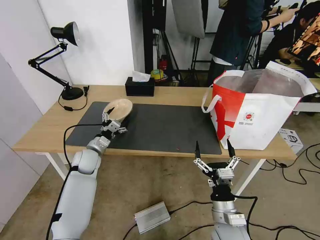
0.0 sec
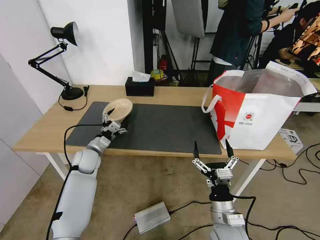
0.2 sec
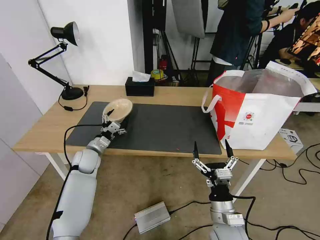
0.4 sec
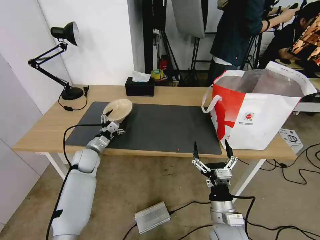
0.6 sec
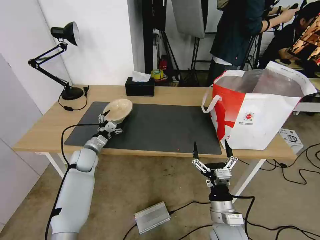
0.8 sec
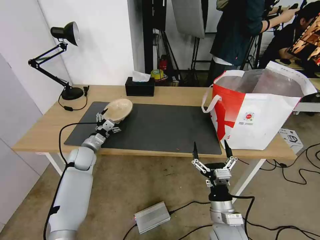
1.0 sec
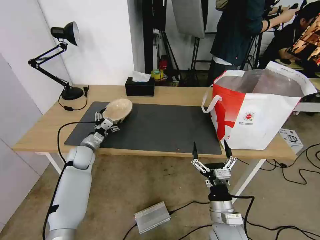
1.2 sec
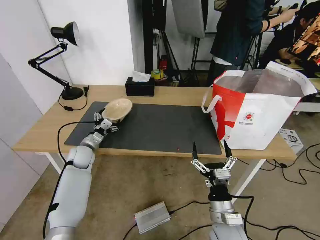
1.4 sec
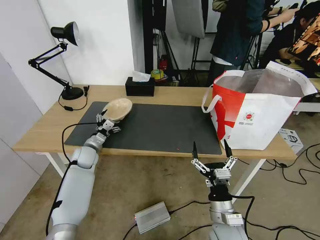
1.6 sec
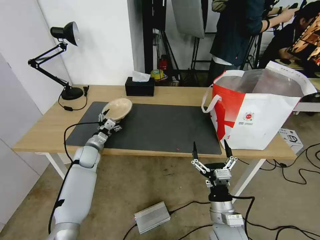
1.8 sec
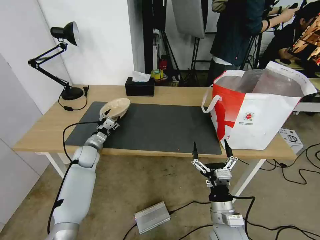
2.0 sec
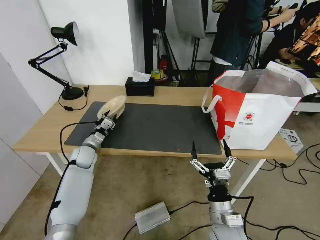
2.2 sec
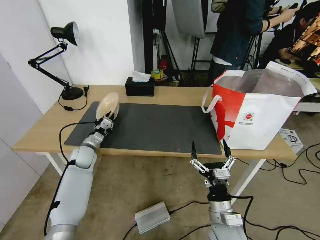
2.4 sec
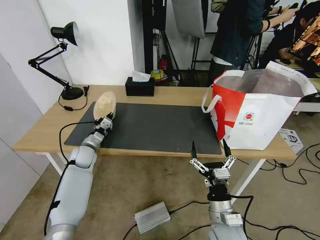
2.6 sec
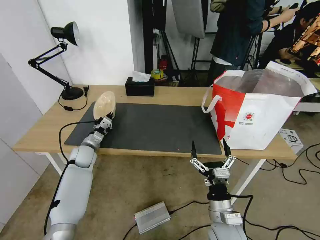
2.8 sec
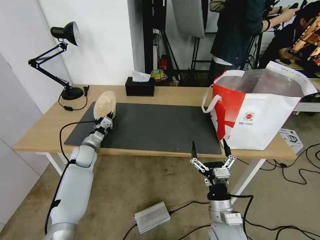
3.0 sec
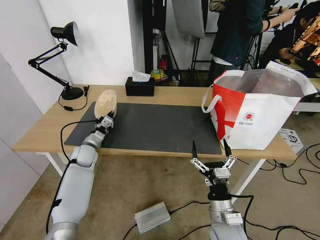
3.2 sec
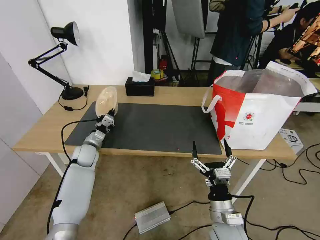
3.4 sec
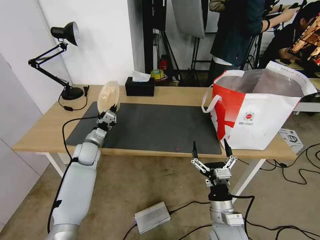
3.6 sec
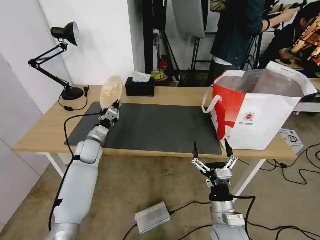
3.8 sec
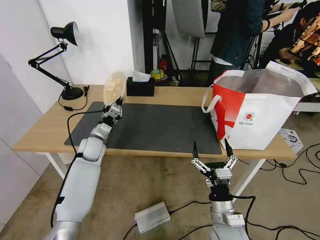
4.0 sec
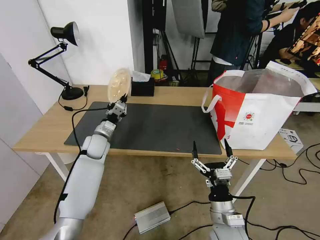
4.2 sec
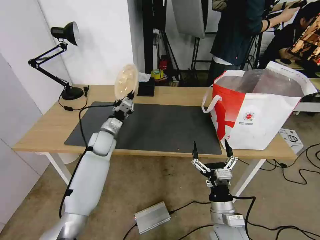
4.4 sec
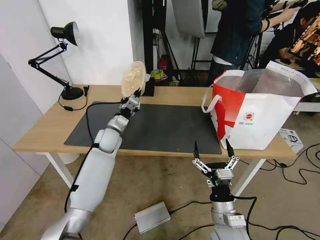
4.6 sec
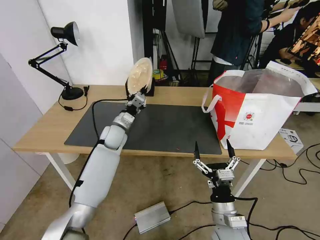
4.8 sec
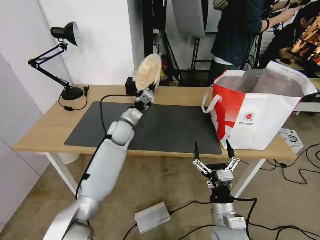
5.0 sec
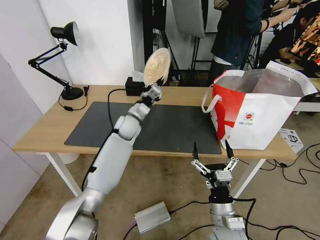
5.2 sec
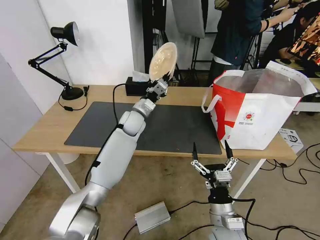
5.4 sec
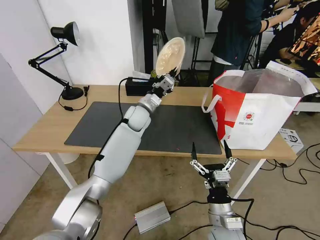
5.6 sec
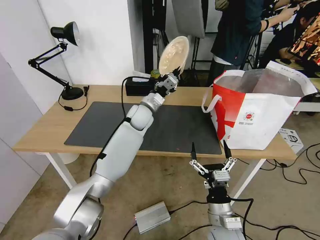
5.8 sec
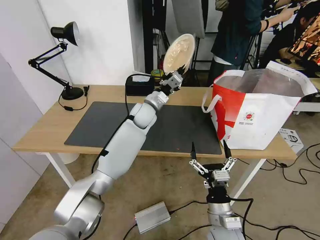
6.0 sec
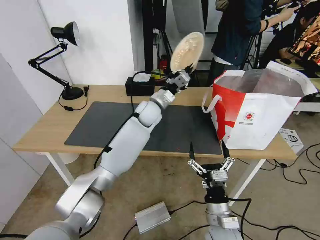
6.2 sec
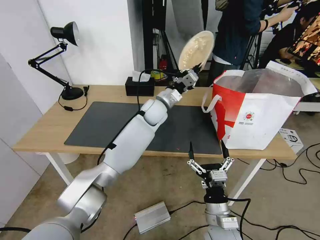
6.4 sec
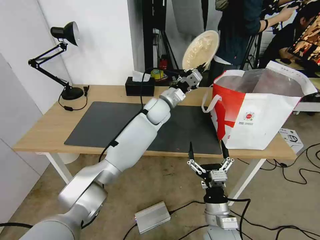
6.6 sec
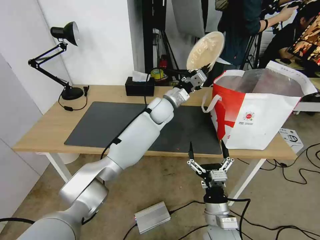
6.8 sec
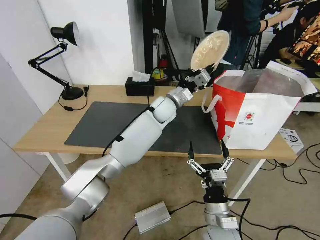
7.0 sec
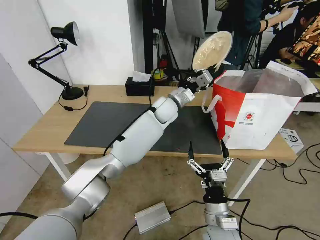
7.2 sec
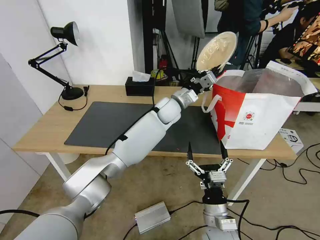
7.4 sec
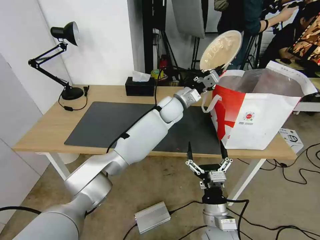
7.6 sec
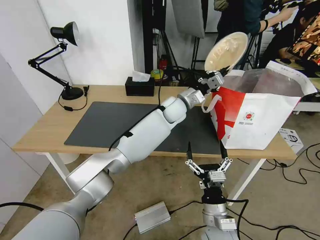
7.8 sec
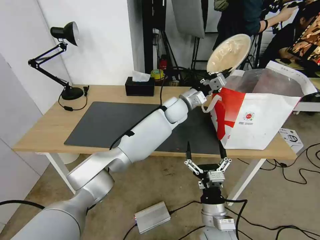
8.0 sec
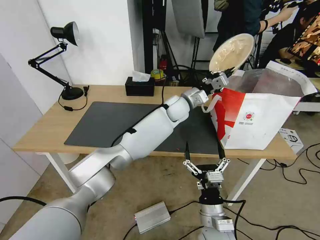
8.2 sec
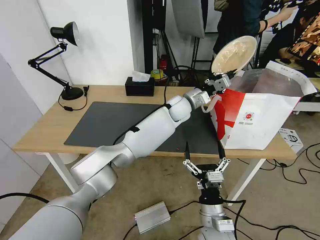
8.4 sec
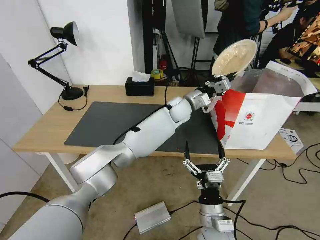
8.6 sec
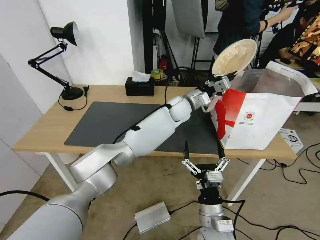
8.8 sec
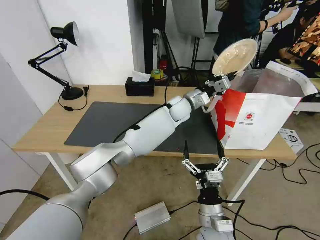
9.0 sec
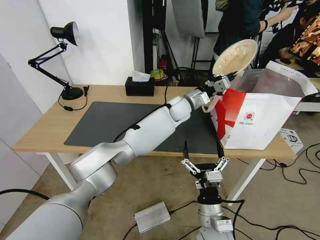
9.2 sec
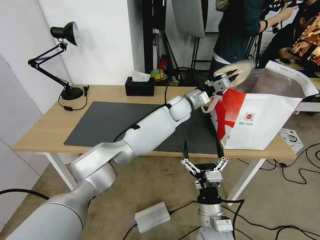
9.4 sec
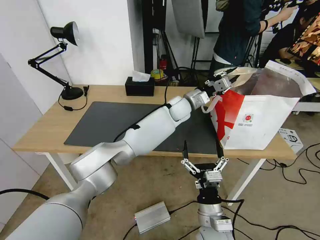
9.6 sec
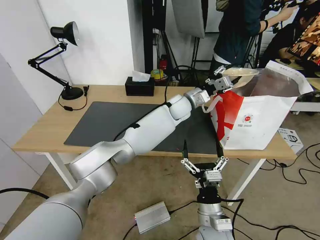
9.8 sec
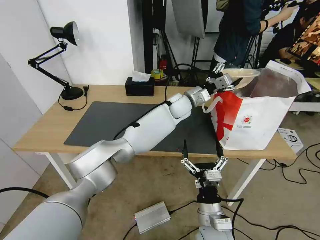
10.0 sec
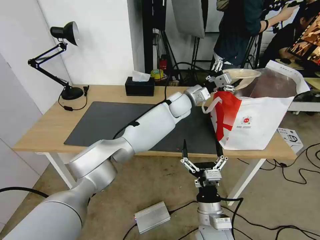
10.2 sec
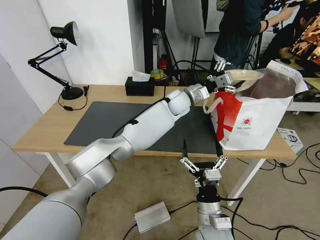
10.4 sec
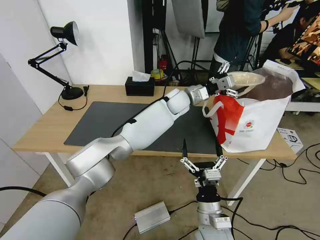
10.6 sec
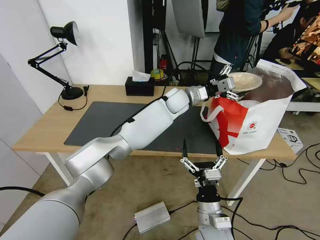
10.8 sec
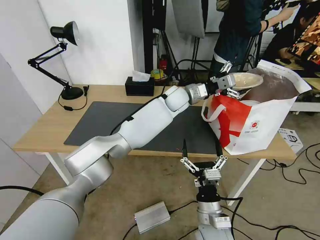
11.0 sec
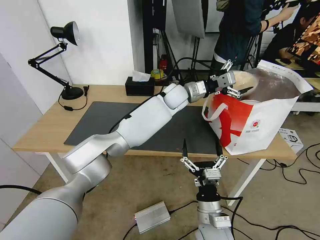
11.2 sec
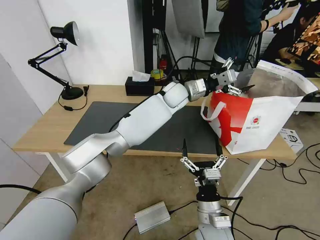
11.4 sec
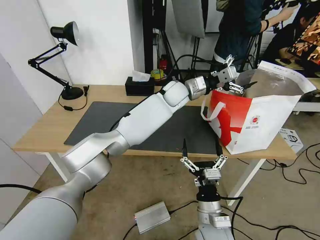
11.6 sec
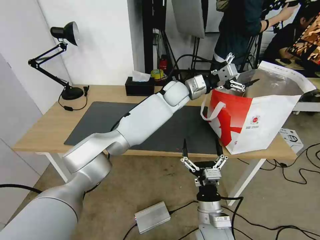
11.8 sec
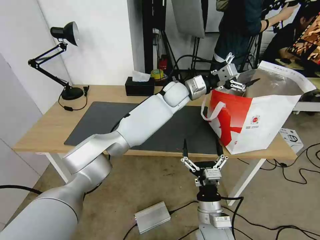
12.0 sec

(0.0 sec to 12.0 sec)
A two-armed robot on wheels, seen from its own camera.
Task of the whole recording: Pick up the trash from the table and place it into the takeout bag.
0.0 sec - 1.6 sec: There are only small adjustments of the grippers.
1.6 sec - 3.0 sec: The left gripper closes up.
3.0 sec - 4.4 sec: The left gripper moves to the right and upward, roughly 10 cm.
4.4 sec - 6.0 sec: The left gripper heads to the right and upward, covering some 20 cm.
6.0 sec - 7.6 sec: The left gripper goes roughly 10 cm to the right.
7.6 sec - 9.0 sec: The grippers stay close to where they were, moving slightly.
9.0 sec - 10.4 sec: The left gripper opens up.
10.4 sec - 12.0 sec: The grippers move only a little.

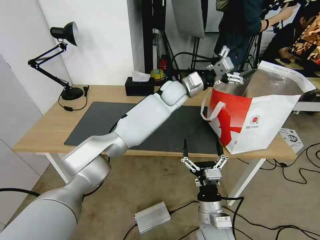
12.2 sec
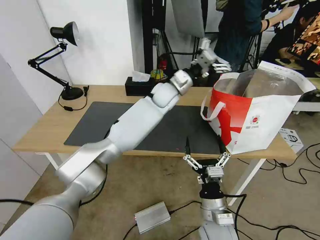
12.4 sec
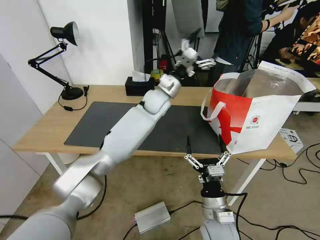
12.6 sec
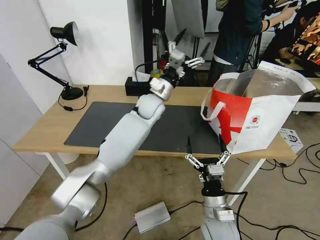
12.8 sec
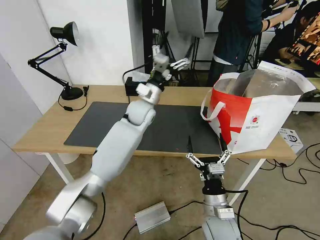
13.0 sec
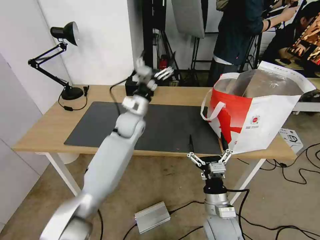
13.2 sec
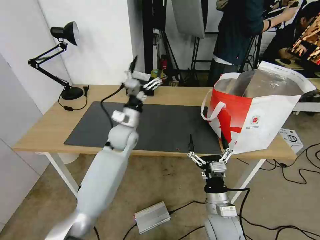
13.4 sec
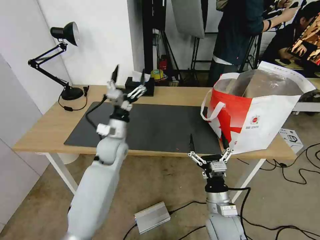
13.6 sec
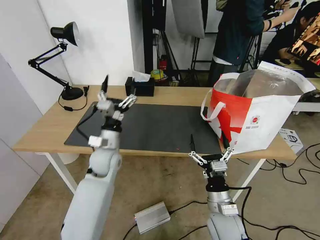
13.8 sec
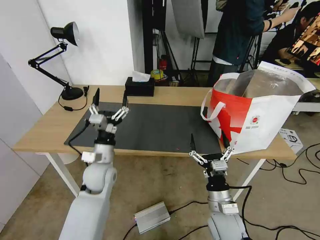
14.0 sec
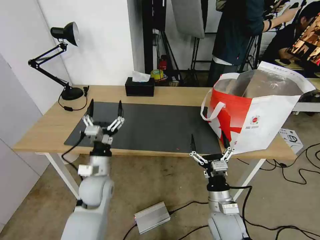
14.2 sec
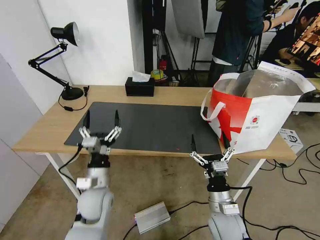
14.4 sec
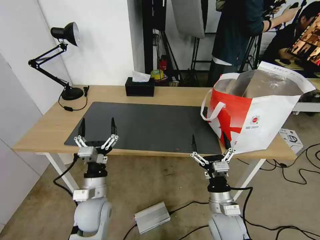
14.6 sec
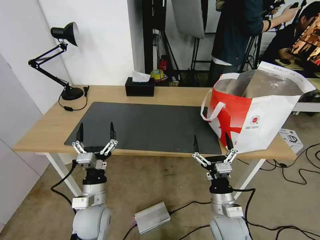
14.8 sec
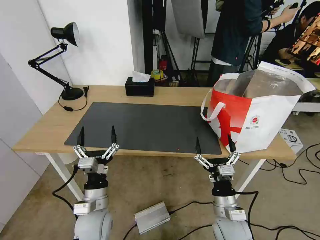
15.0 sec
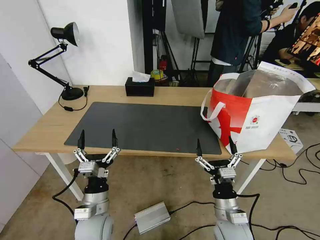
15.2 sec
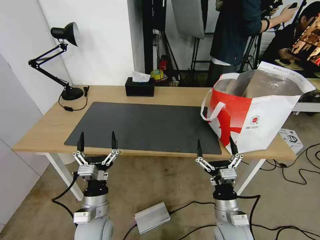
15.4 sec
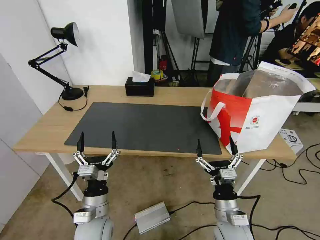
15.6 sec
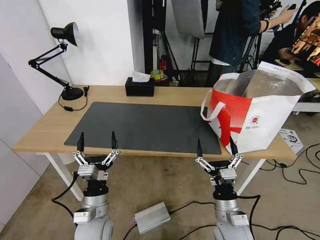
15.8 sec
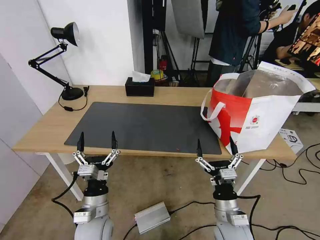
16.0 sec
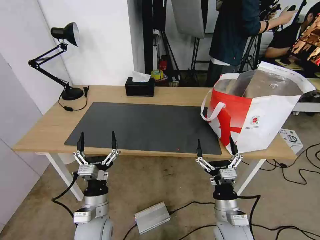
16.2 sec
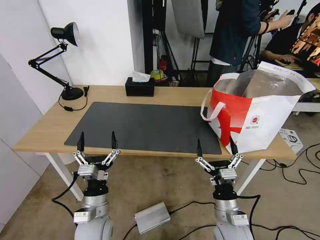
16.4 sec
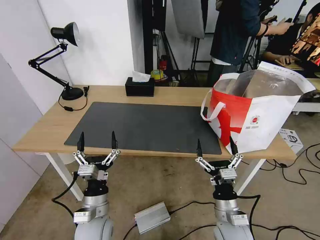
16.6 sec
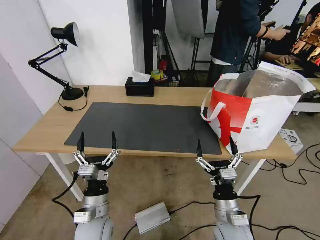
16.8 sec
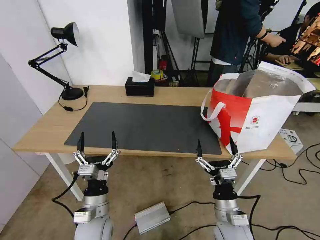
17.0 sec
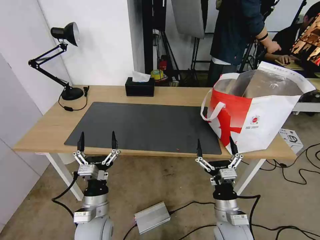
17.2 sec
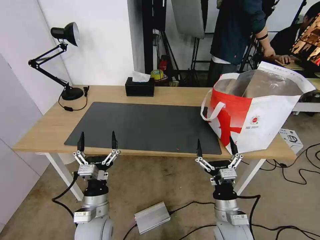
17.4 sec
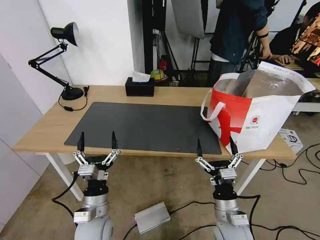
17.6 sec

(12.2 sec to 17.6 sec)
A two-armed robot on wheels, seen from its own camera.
Task of the whole recording: Pick up the trash from the table and place it into the takeout bag.
12.2 sec - 13.6 sec: The left gripper goes about 30 cm to the left, backward and downward.
13.6 sec - 15.0 sec: The left gripper moves backward and downward, roughly 20 cm.
15.0 sec - 16.2 sec: The grippers move only a little.
16.2 sec - 17.6 sec: The two grippers keep their place.

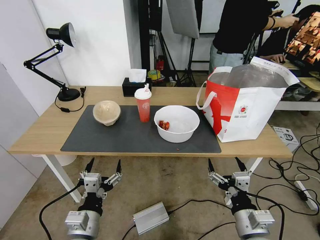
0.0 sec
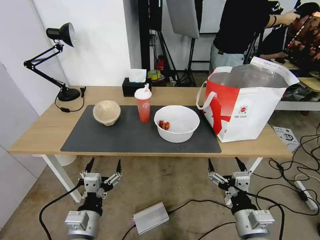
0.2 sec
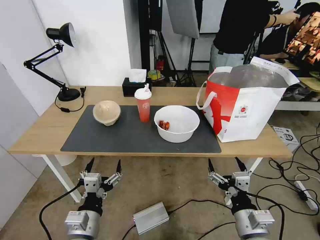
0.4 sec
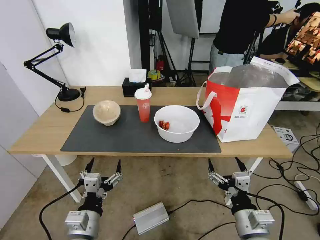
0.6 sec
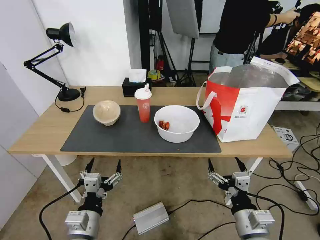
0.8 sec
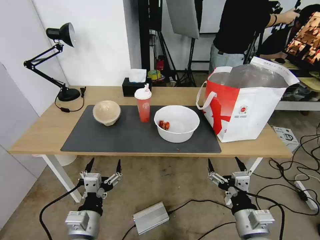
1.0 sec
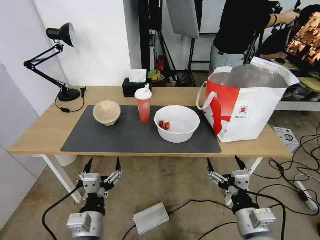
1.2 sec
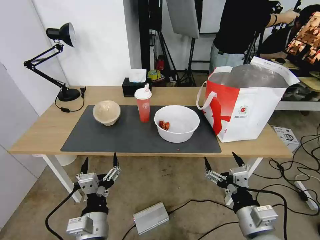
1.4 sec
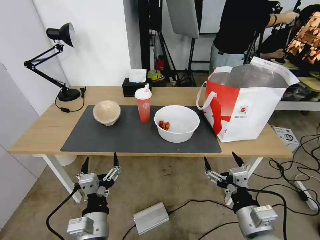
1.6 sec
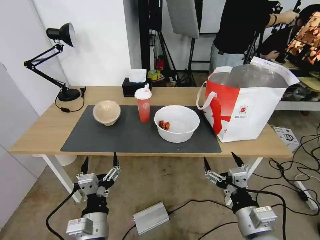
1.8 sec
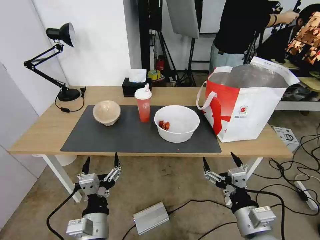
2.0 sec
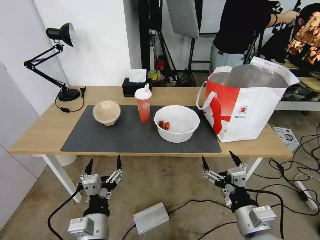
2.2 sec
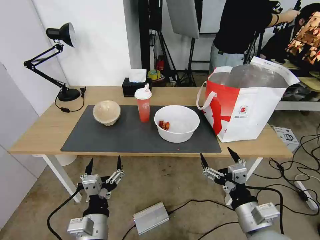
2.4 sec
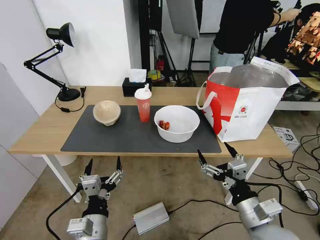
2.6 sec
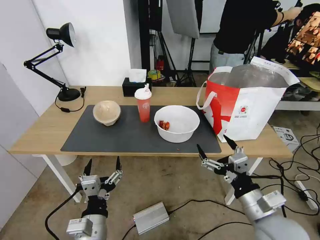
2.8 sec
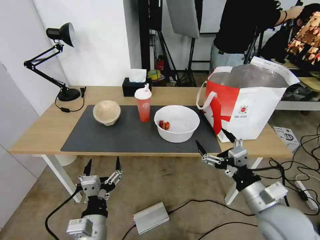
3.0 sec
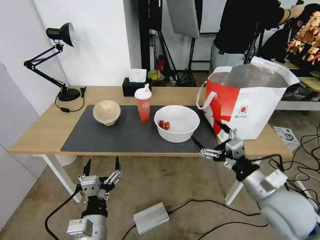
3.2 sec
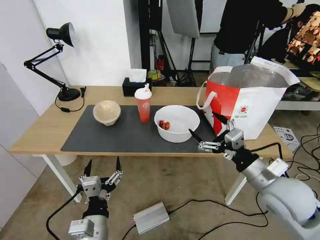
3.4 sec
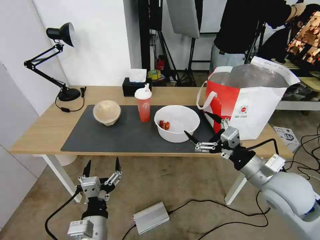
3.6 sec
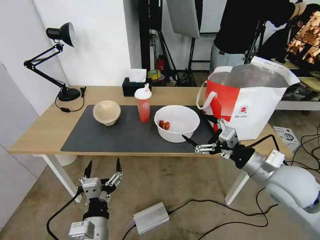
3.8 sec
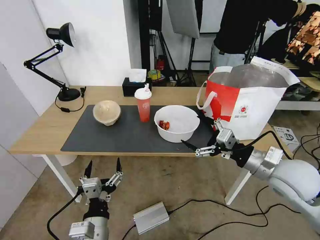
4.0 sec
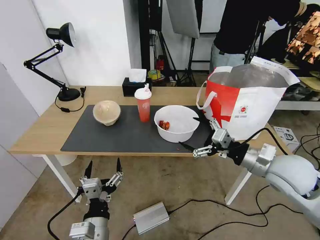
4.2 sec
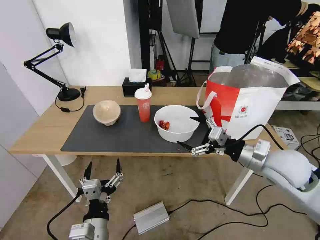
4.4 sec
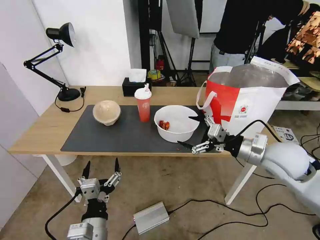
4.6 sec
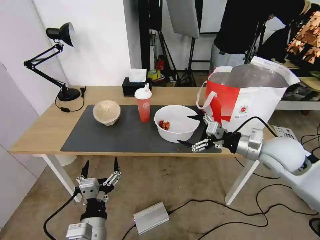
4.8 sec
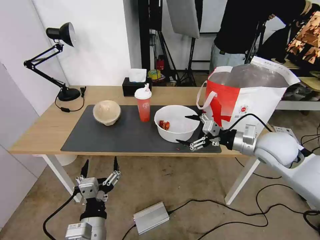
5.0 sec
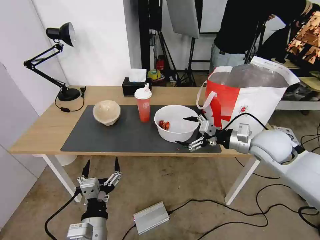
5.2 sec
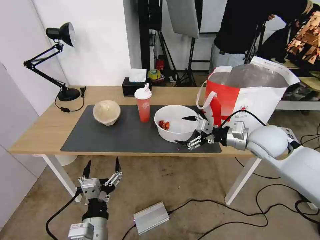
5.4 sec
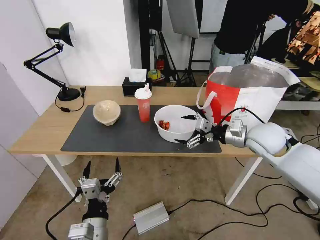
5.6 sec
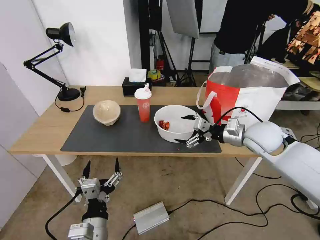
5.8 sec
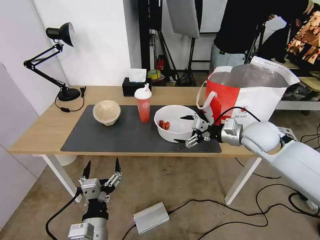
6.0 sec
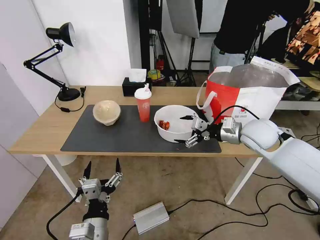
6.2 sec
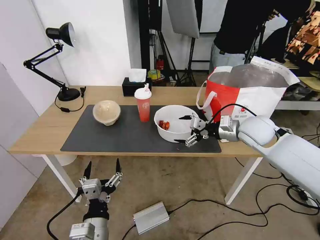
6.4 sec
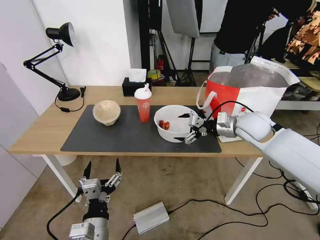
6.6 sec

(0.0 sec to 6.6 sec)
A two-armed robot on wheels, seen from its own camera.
Task of the whole recording: Pick up the trash from the table and place it into the takeout bag.
1.6 sec - 3.2 sec: The right gripper goes roughly 10 cm forward and to the right.
3.2 sec - 5.0 sec: The right gripper shifts roughly 15 cm forward.
5.0 sec - 6.6 sec: The right gripper travels forward by some 10 cm.
